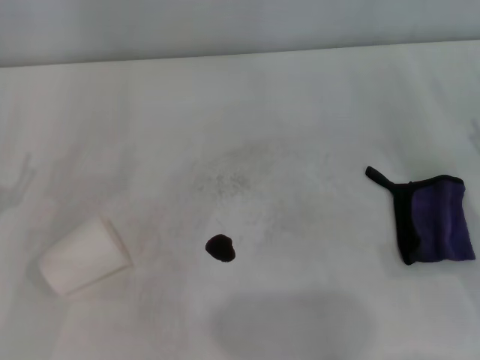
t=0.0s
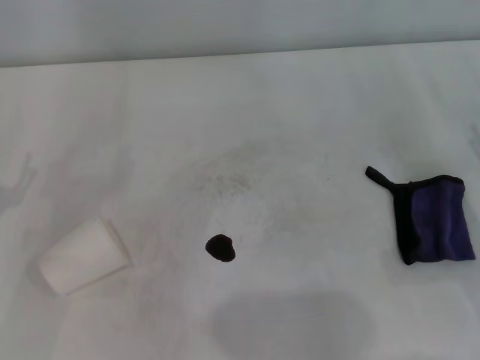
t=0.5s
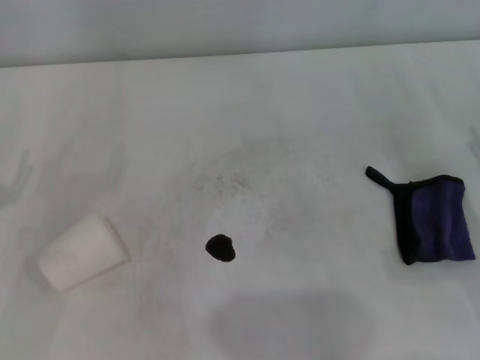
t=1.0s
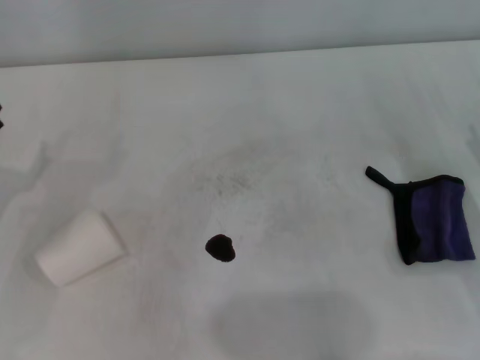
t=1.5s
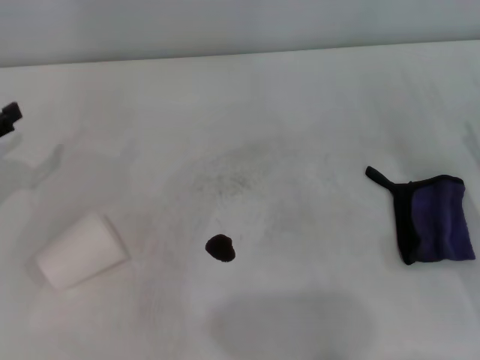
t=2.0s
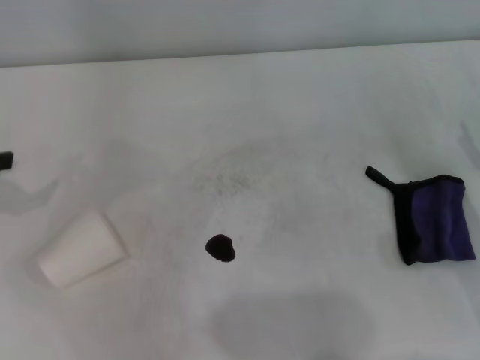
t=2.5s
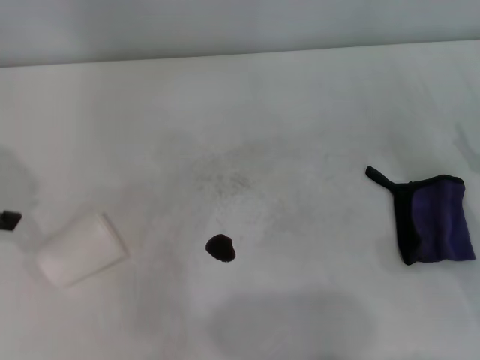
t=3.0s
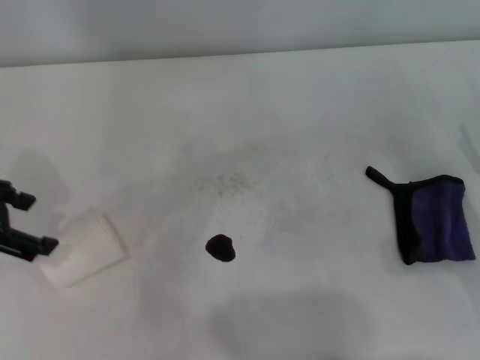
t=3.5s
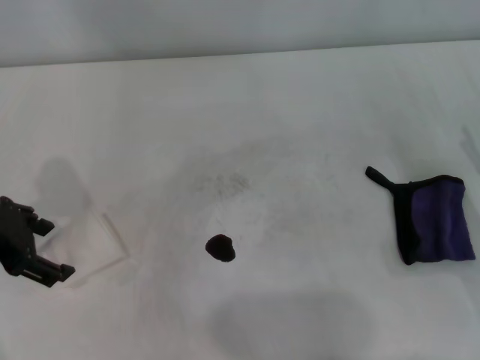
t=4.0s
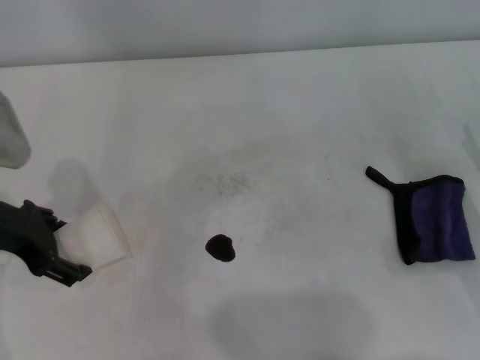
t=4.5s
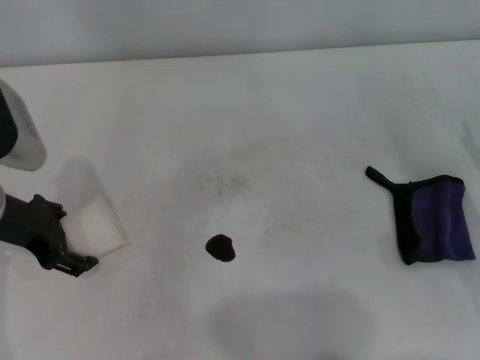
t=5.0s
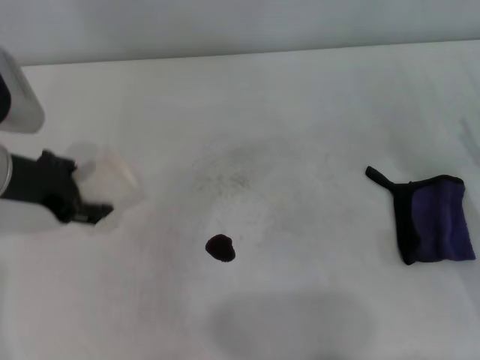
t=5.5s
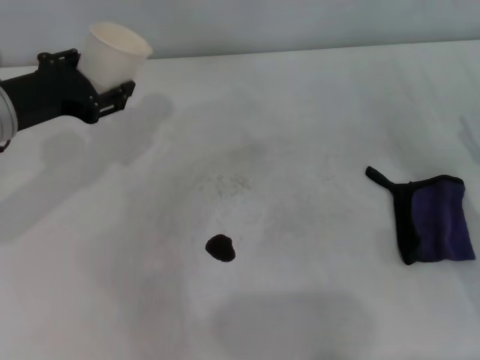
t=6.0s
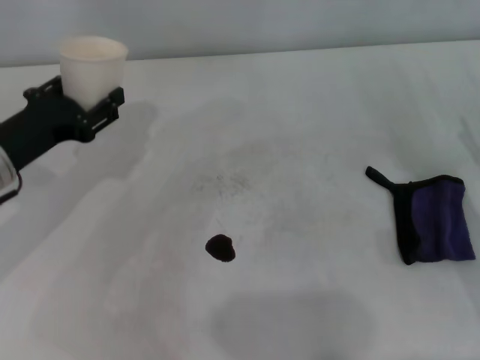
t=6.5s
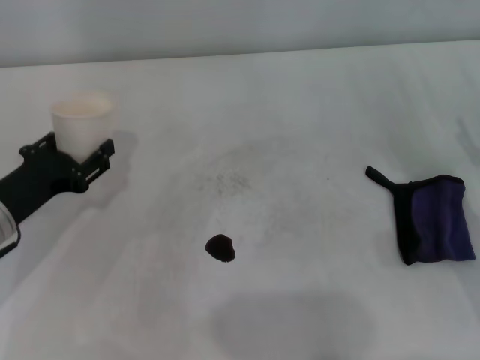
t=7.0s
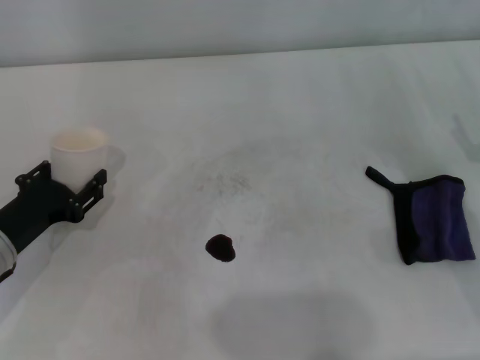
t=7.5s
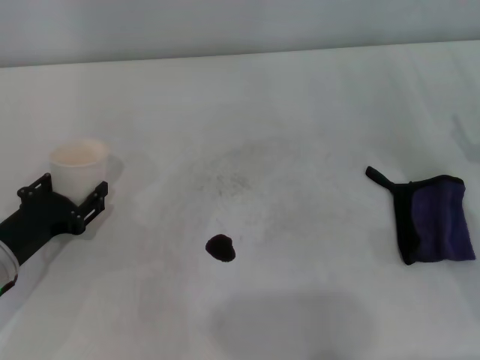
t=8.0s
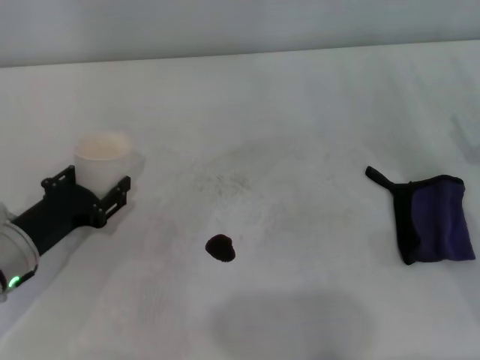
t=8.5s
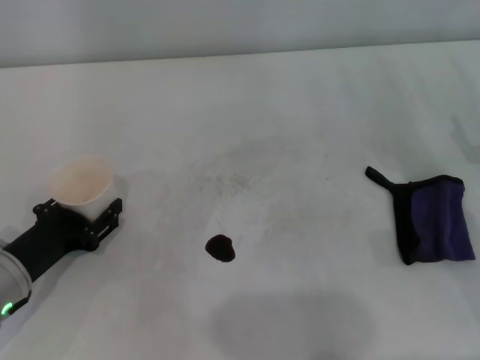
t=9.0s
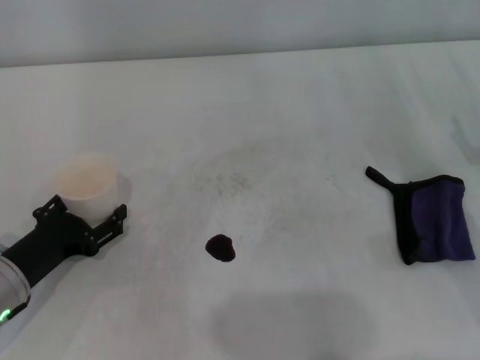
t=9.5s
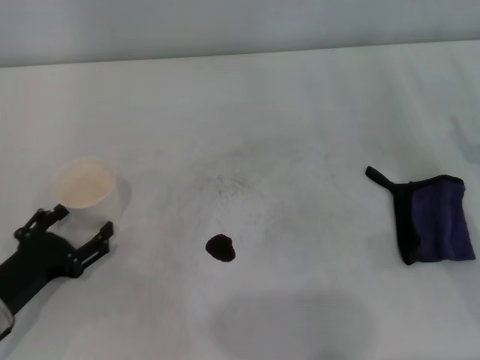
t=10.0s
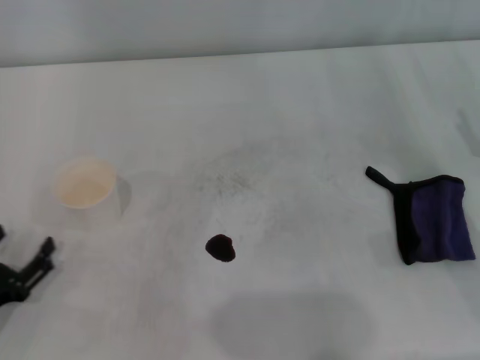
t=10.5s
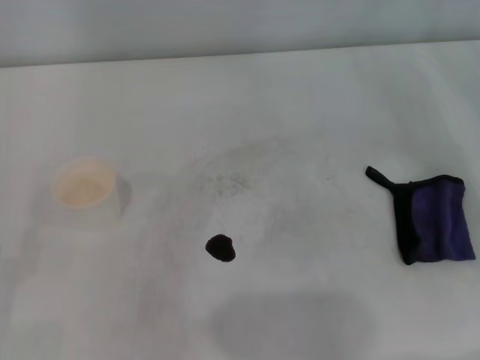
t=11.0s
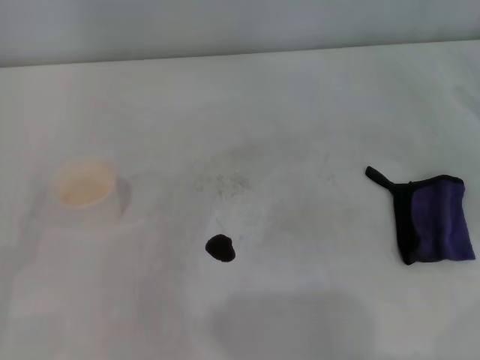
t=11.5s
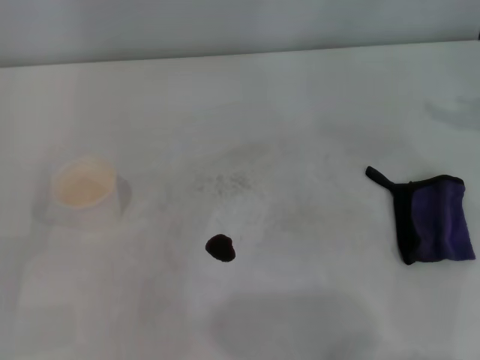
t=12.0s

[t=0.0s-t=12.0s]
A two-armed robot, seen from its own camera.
Step, t=0.0s to t=5.0s: Grasp the paper cup with the left gripper.
Step, t=5.5s to t=9.5s: Stand the paper cup upright with the left gripper.
t=2.0s to t=4.0s: The left gripper travels to the right and upward by some 10 cm.
t=4.0s to t=6.0s: The left gripper shifts by some 5 cm, and closes its fingers.
t=6.0s to t=8.0s: The left gripper goes approximately 15 cm downward and backward.
t=8.0s to t=10.0s: The left gripper opens.
t=10.0s to t=12.0s: The left gripper travels to the left by approximately 5 cm.

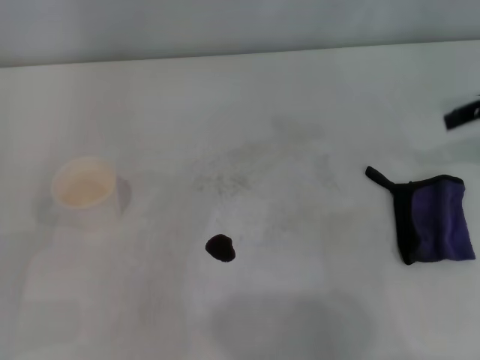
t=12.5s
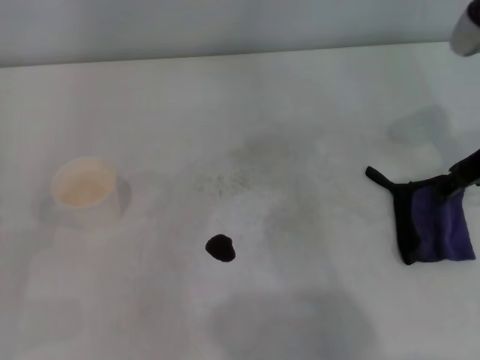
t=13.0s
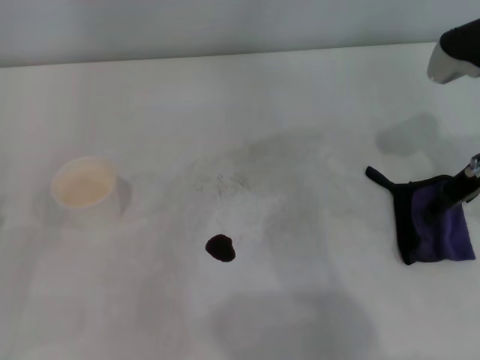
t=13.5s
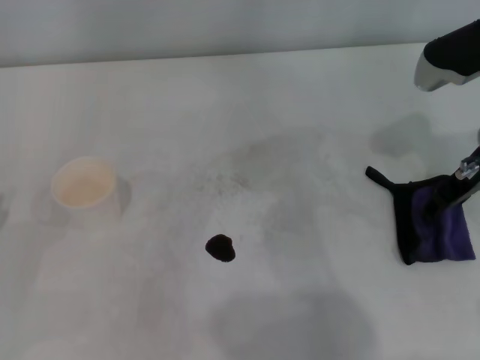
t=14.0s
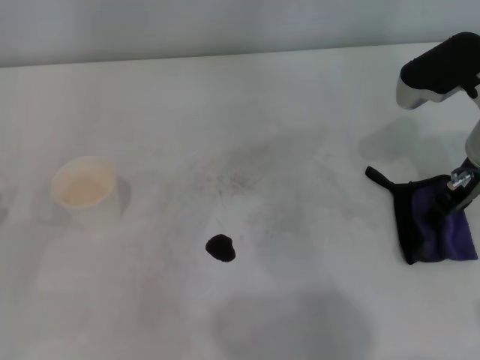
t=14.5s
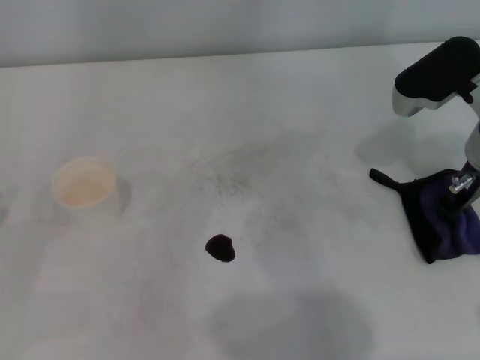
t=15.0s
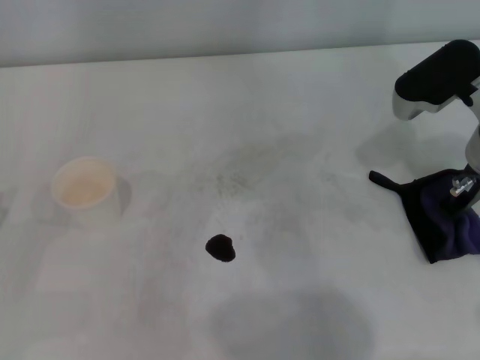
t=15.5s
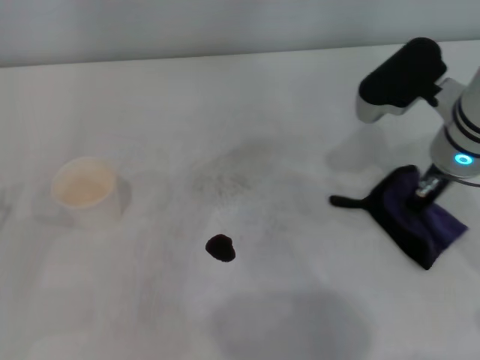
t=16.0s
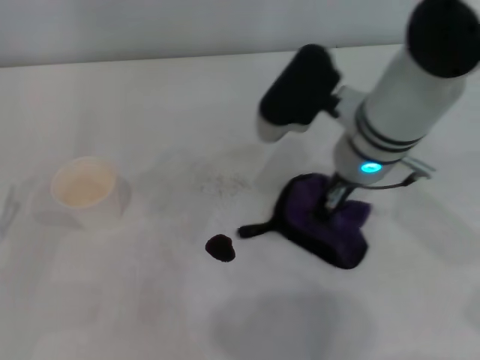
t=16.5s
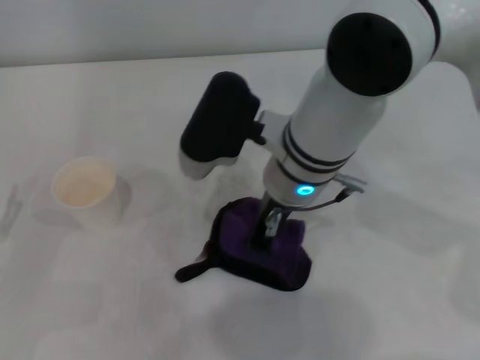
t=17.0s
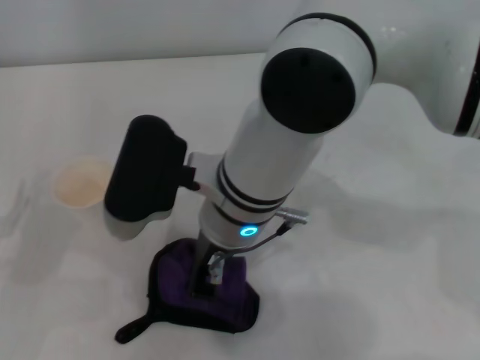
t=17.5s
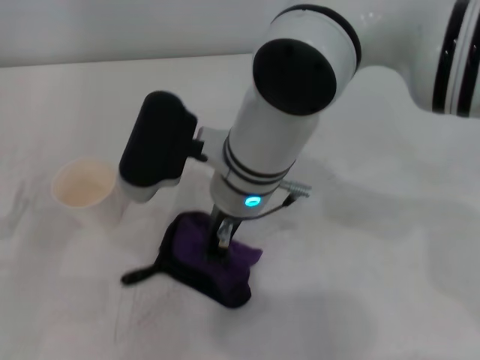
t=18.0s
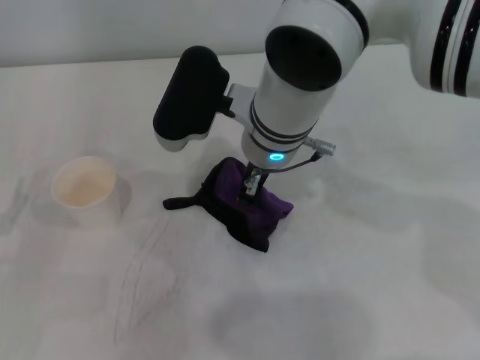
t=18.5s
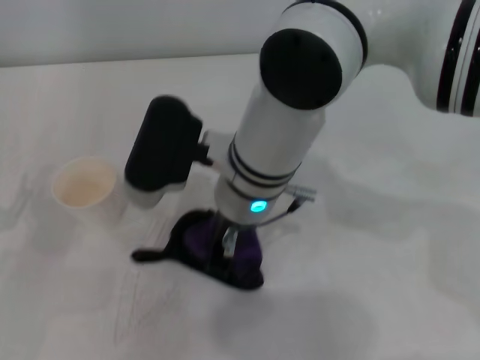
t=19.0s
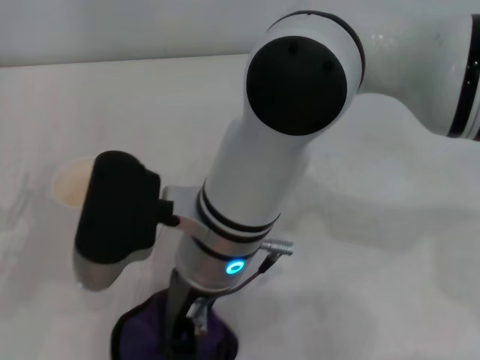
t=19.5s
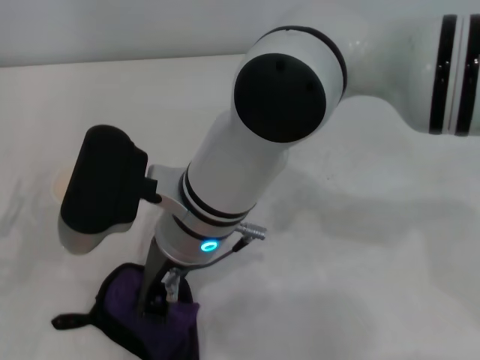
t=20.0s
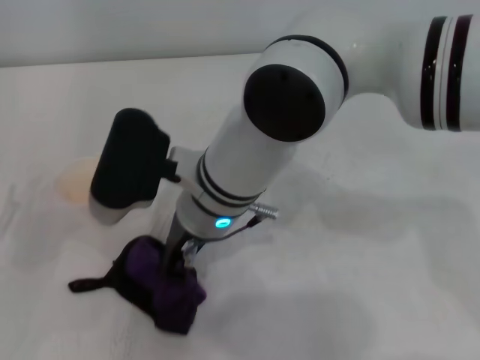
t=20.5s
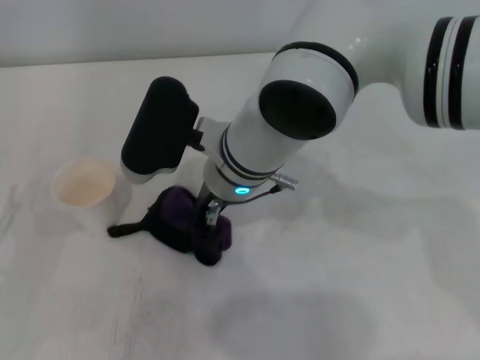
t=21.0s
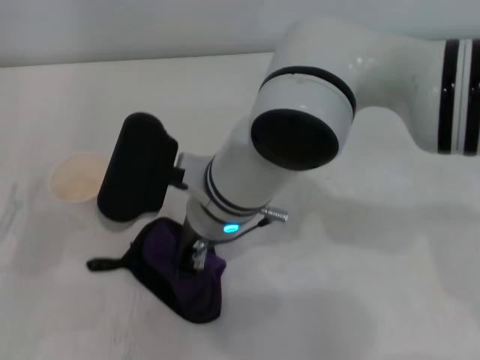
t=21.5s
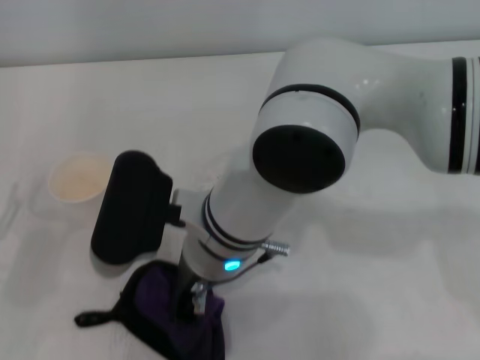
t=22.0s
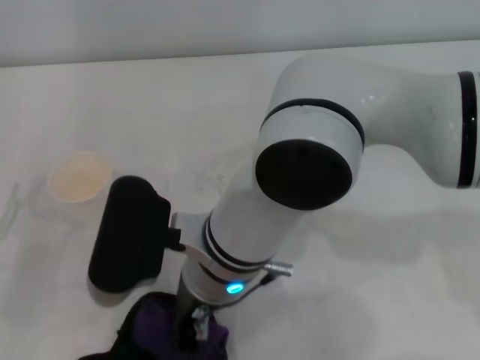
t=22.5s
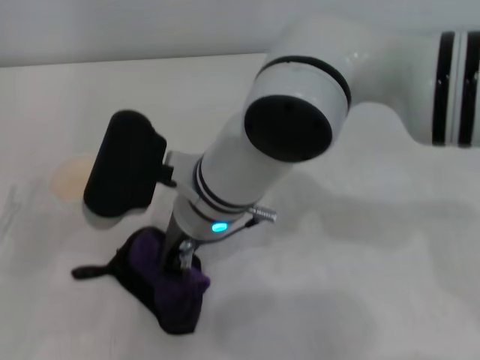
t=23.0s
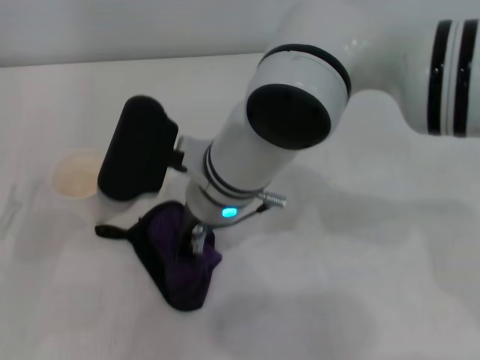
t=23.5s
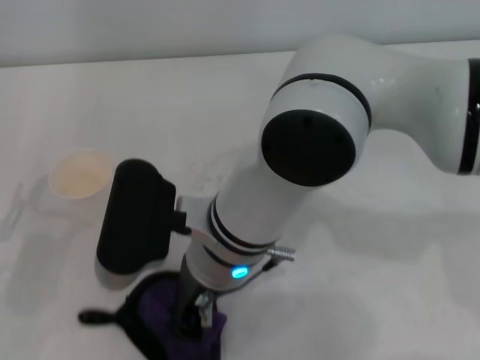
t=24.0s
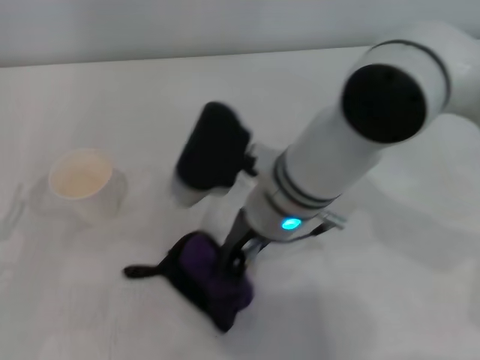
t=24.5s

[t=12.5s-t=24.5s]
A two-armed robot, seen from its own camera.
Step, t=12.5s to t=15.5s: Grasp the rag with the right gripper.
t=12.5s to t=14.5s: The right gripper goes some 10 cm to the left and downward.
t=14.5s to t=16.5s: The right gripper heads to the left, covering roughly 15 cm, and closes up.
t=16.5s to t=18.5s: The right gripper is displaced to the left by approximately 10 cm.
t=18.5s to t=20.5s: The right gripper shifts about 5 cm to the left and backward.
t=20.5s to t=22.5s: The right gripper heads backward, covering about 5 cm.
t=22.5s to t=24.5s: The right gripper heads to the right, covering approximately 5 cm.

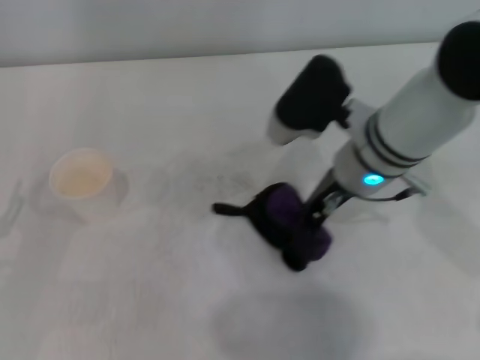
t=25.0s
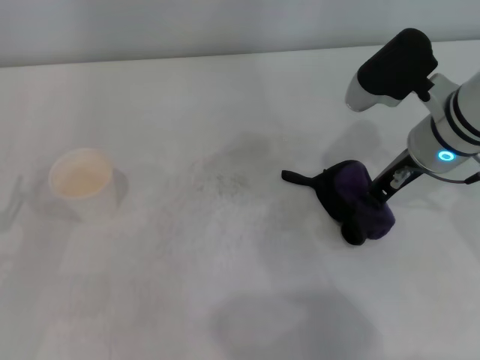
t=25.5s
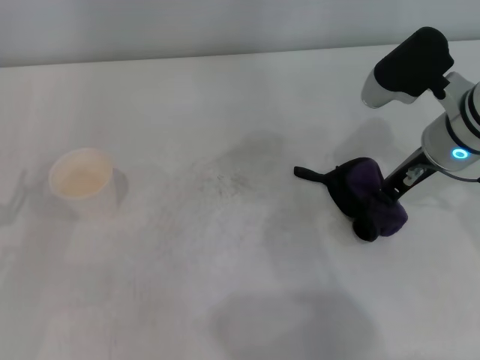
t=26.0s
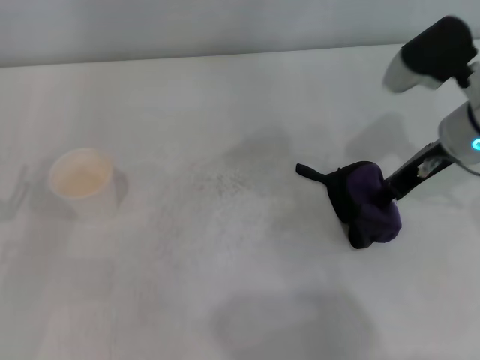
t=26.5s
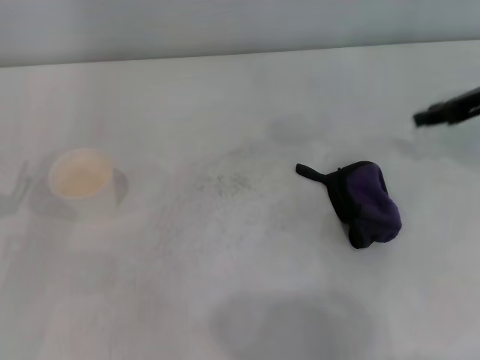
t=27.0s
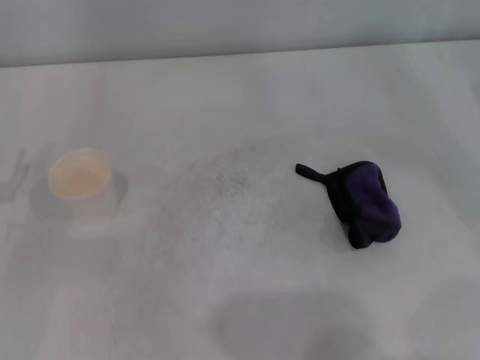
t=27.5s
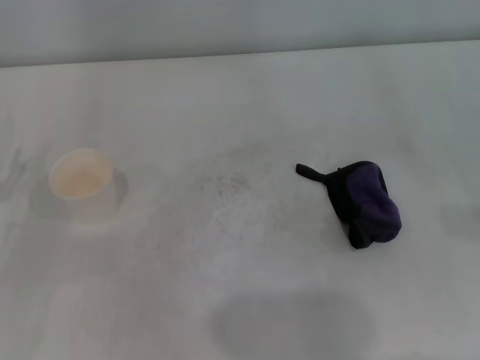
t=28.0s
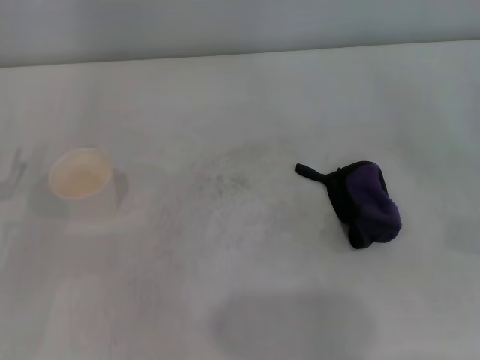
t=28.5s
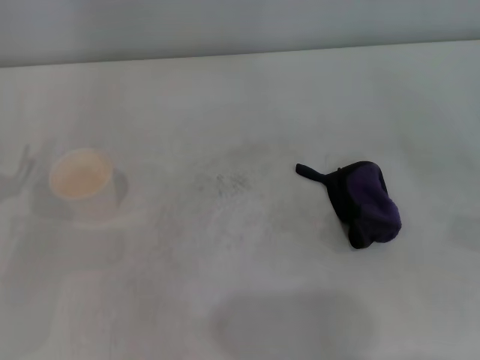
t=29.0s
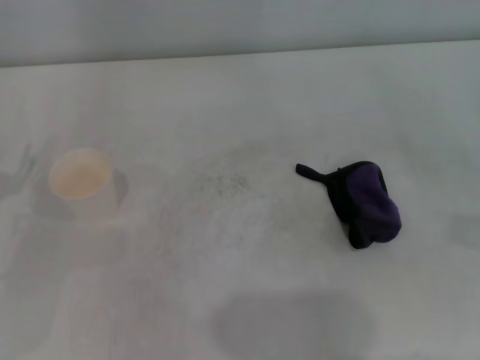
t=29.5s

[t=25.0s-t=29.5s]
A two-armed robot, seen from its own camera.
t=25.0s to t=27.0s: The right gripper goes about 20 cm to the right, and opens.
t=27.0s to t=29.5s: The right gripper moves backward, downward and to the right, some 20 cm.
